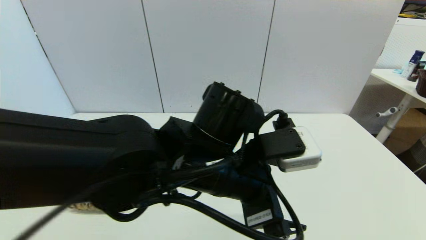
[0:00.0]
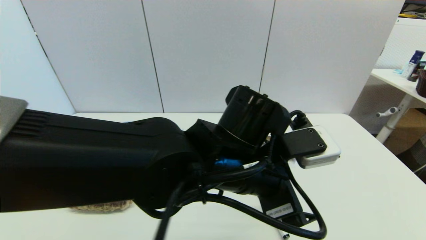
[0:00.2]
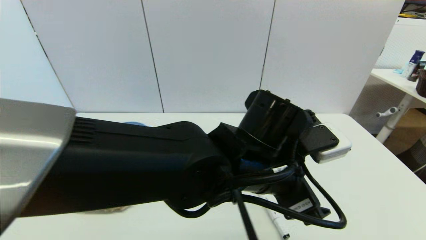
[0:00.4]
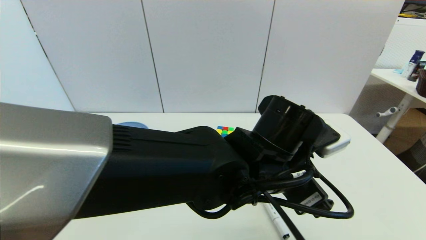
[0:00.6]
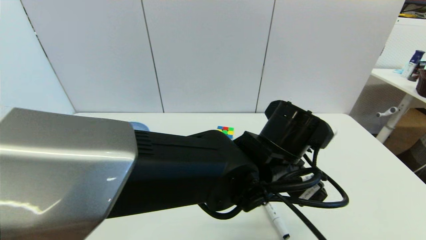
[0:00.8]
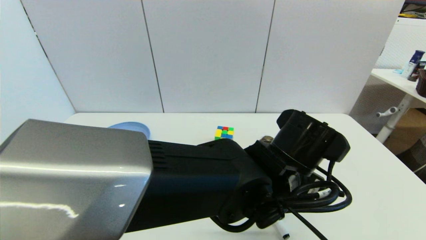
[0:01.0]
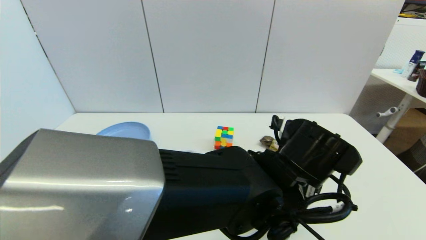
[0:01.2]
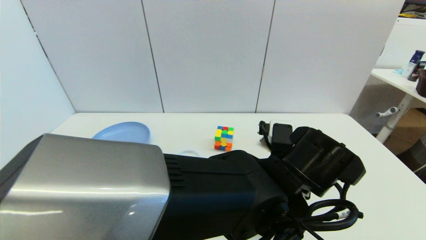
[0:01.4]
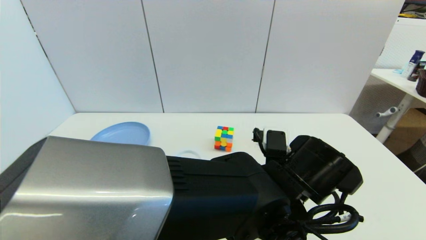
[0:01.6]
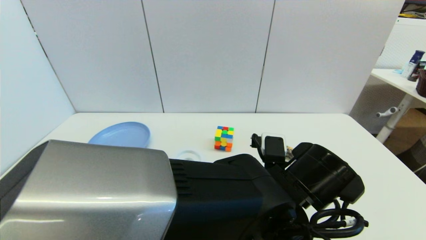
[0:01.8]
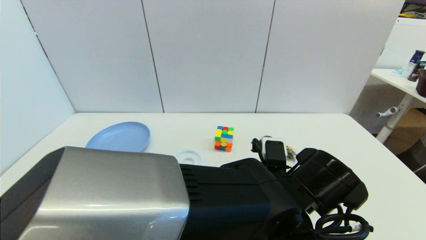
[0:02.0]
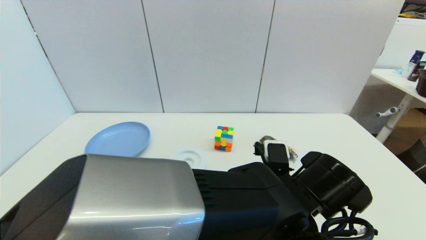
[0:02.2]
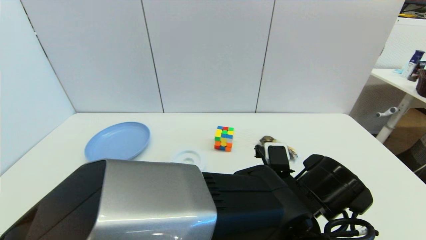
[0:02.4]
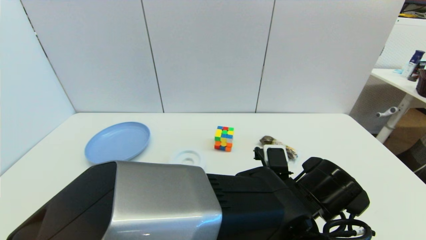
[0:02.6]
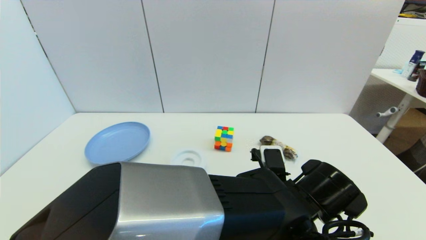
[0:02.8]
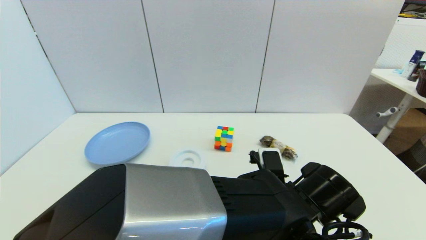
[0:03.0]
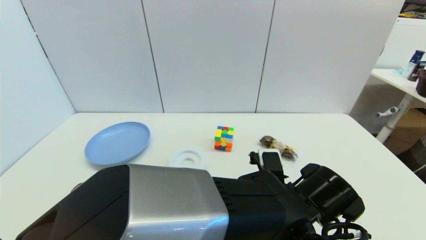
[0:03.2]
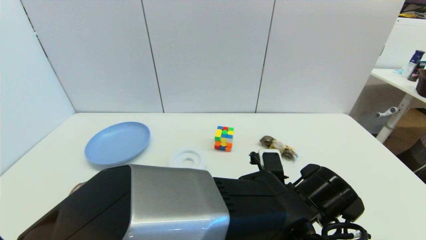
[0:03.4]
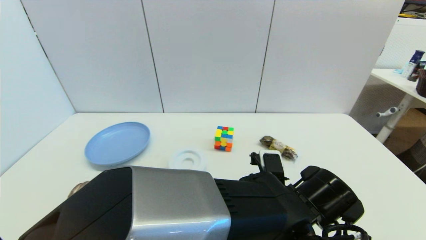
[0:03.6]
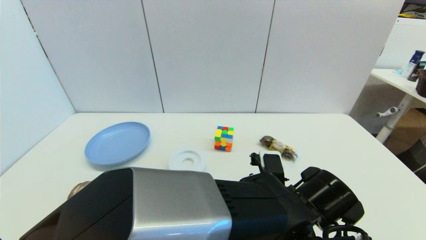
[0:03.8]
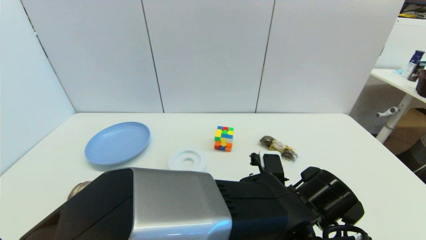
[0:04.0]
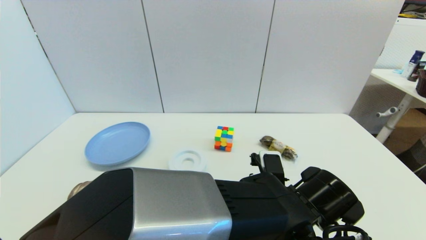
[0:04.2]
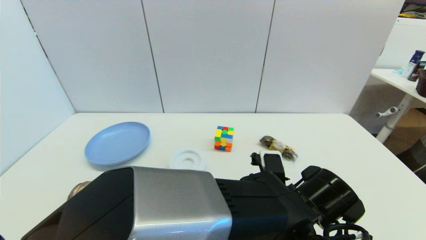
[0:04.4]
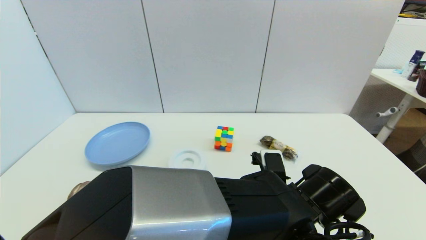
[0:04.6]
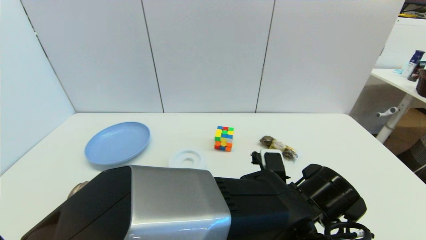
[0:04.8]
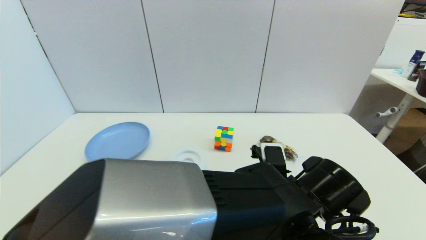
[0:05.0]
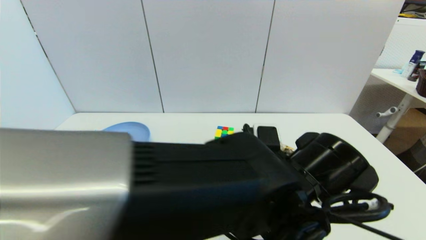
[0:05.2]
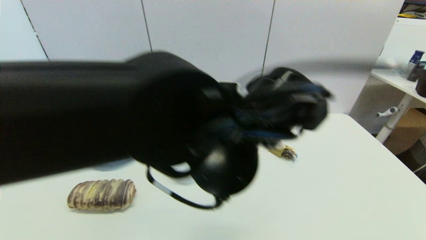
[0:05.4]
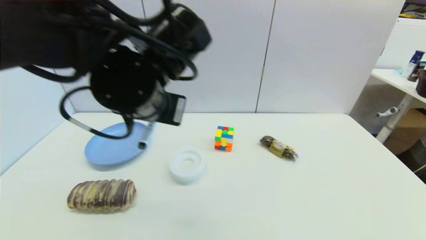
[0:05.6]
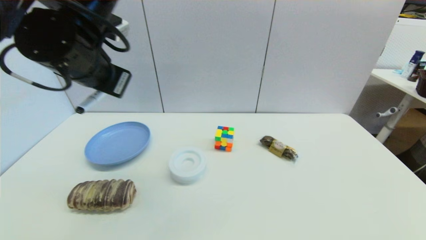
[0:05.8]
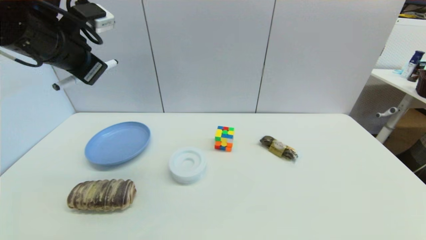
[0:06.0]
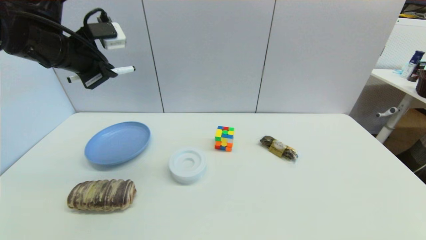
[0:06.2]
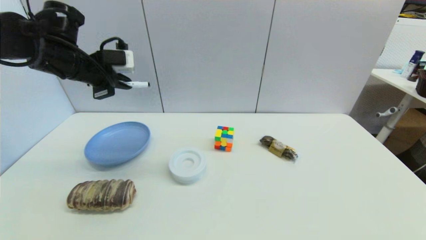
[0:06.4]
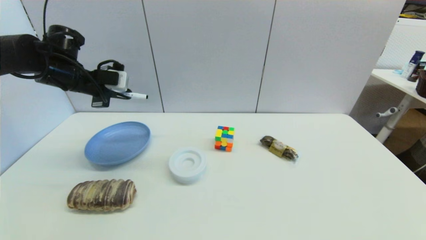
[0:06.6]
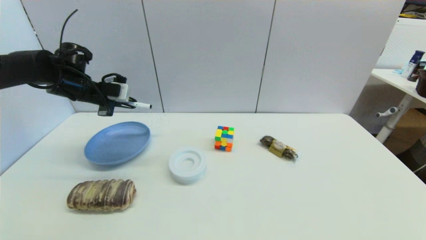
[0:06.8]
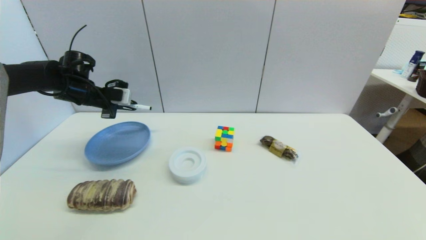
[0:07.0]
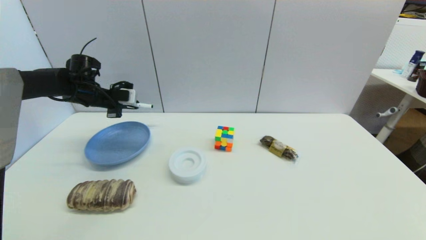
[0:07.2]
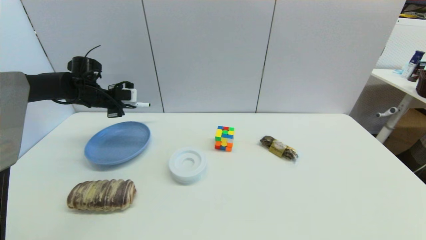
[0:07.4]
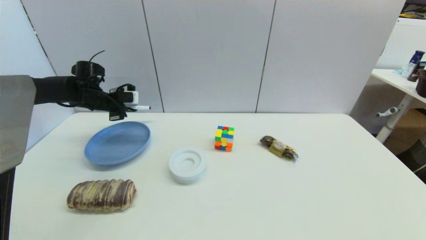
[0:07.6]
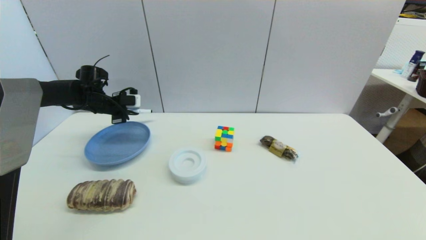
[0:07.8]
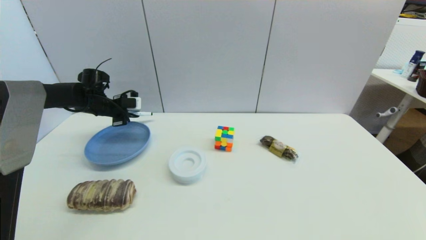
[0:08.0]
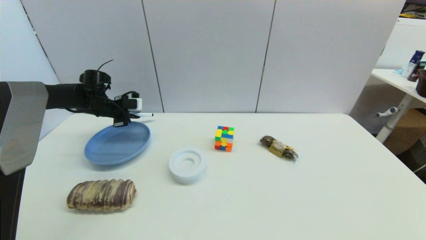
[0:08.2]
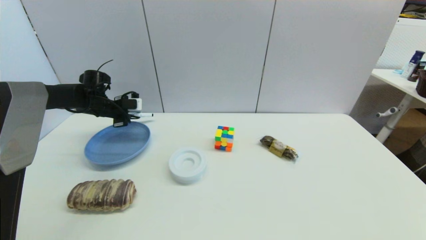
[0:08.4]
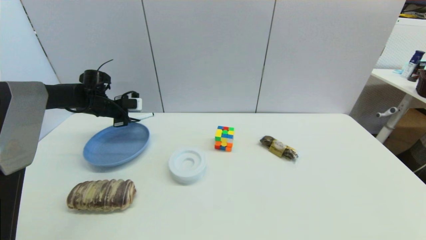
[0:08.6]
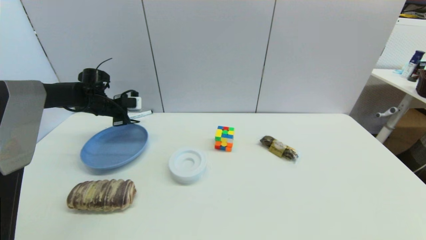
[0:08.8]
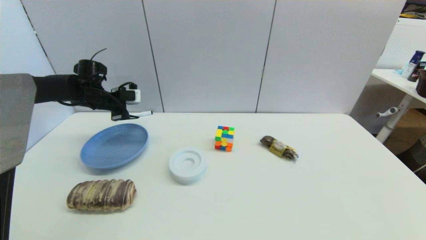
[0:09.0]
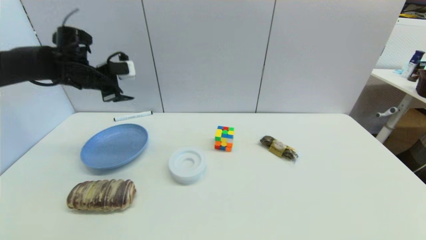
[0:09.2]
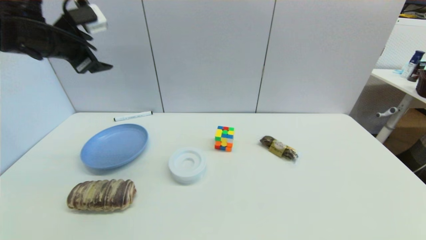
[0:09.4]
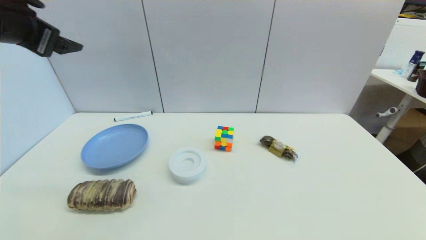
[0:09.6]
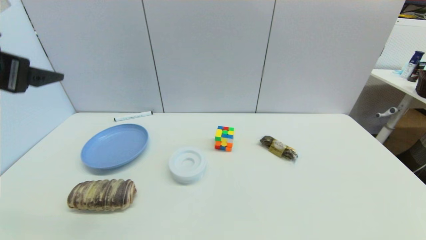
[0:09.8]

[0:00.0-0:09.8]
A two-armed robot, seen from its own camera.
Task of the whole recording: put the black marker in the designated position.
Step, 0:00.0 to 0:04.8: Grasp the Marker pen with left gripper.
Step, 0:05.0 to 0:08.6: Place the Marker pen on the table with left gripper.
0:00.0 to 0:01.4: The left gripper shifts approximately 10 cm to the right.
0:02.8 to 0:04.2: The left gripper closes.
0:04.2 to 0:05.6: The left gripper travels to the left and upward by roughly 30 cm, and closes up.
0:05.6 to 0:07.0: The left gripper is displaced to the left and forward by some 30 cm.
0:07.0 to 0:08.4: The left gripper goes some 5 cm downward.
0:08.4 to 0:09.8: The left gripper goes approximately 35 cm backward and upward, and opens its fingers.

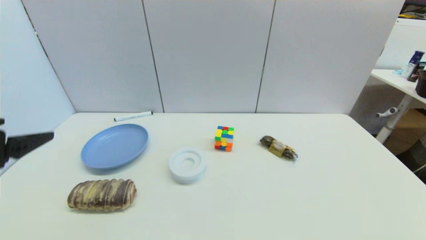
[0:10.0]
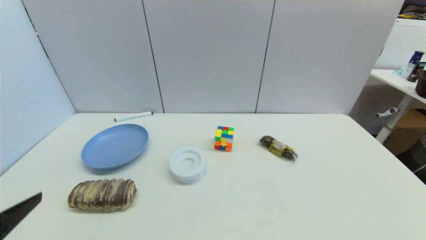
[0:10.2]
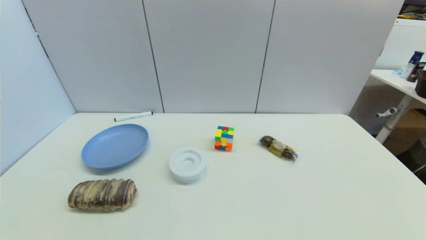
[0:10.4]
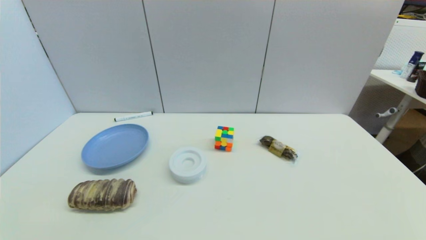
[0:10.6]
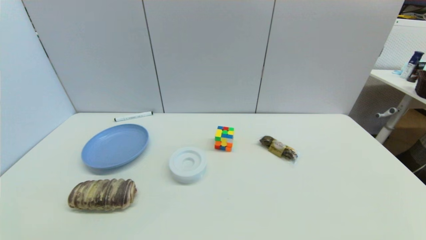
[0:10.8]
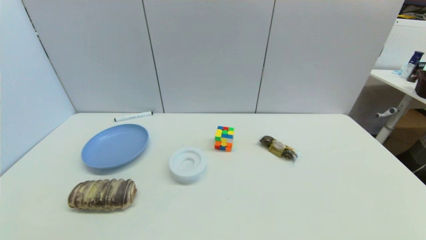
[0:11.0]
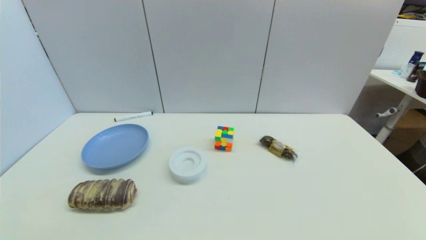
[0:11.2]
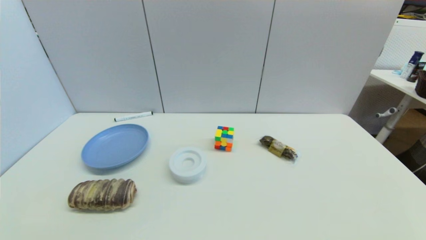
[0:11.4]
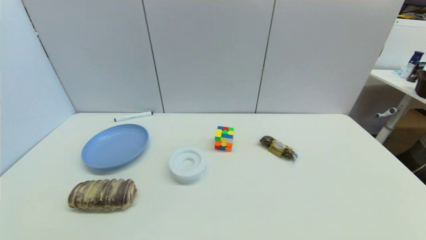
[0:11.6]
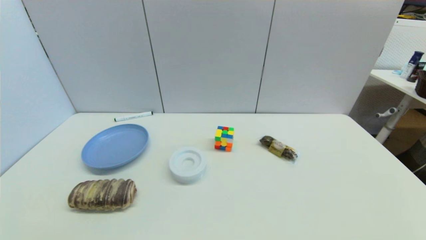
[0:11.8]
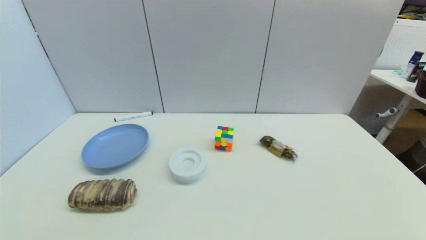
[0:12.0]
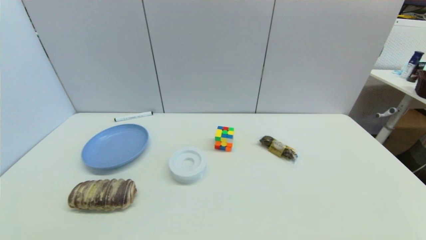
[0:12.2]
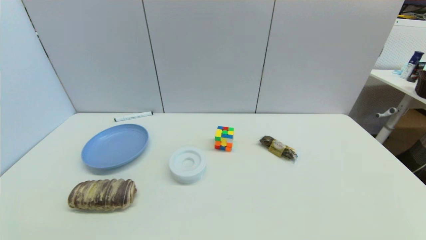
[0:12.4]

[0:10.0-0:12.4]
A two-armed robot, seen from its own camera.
Task of the whole recording: put the black marker in the designated position.
0:10.0 to 0:11.2: The left gripper moves downward and backward, some 25 cm.
0:11.2 to 0:12.4: Both grippers stay about where they are.

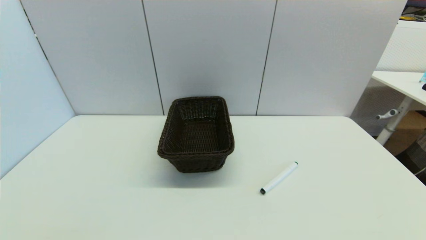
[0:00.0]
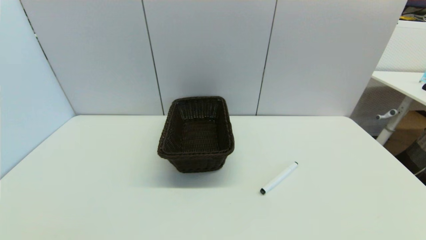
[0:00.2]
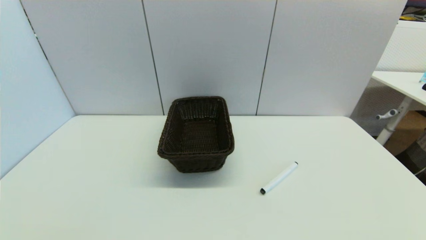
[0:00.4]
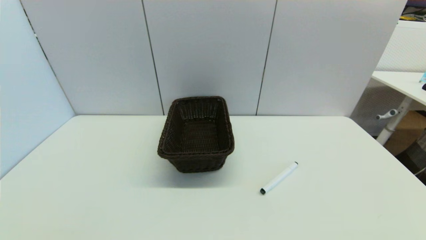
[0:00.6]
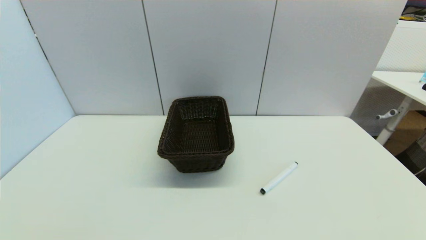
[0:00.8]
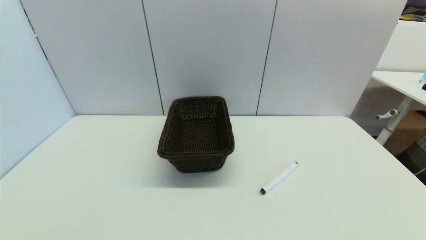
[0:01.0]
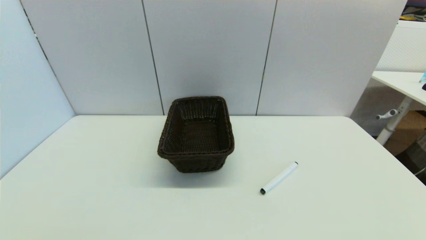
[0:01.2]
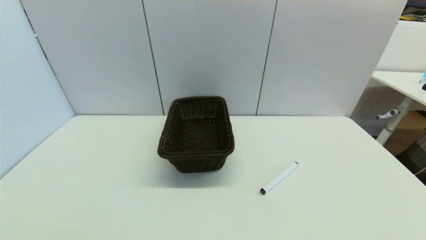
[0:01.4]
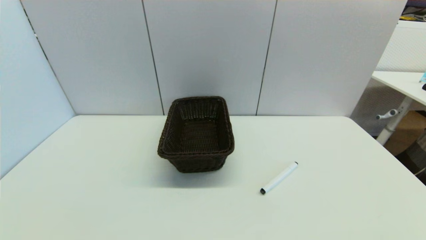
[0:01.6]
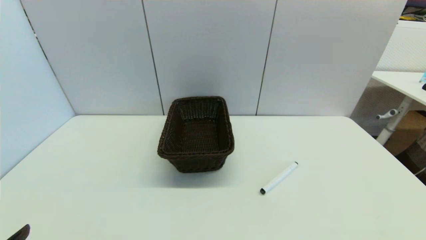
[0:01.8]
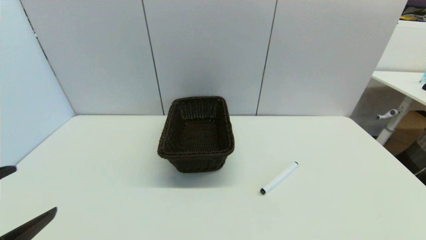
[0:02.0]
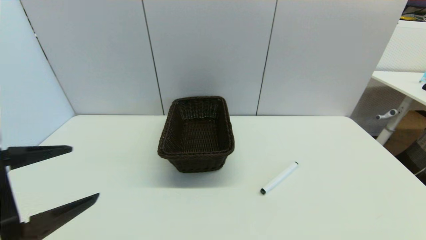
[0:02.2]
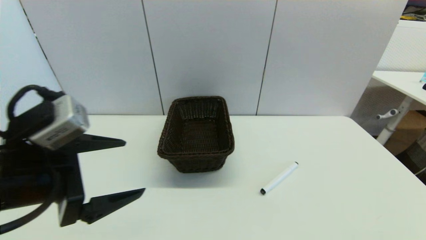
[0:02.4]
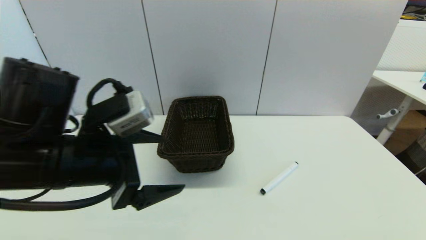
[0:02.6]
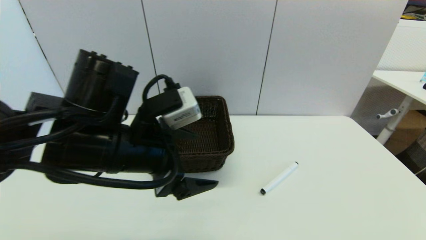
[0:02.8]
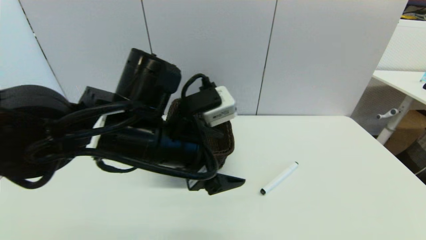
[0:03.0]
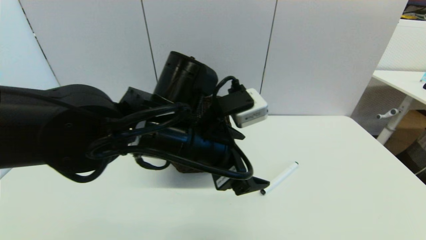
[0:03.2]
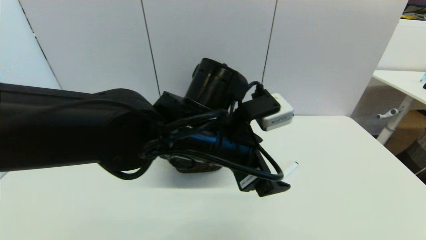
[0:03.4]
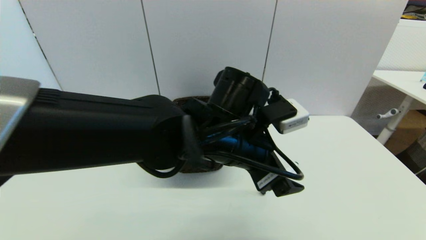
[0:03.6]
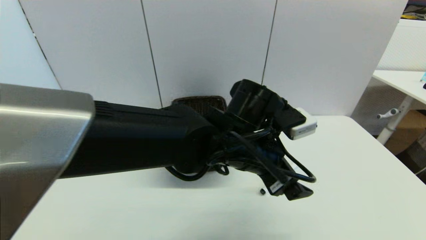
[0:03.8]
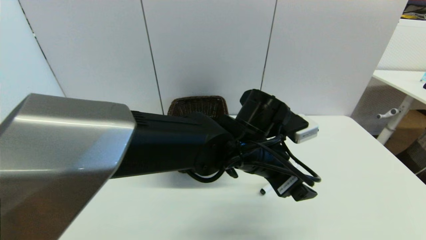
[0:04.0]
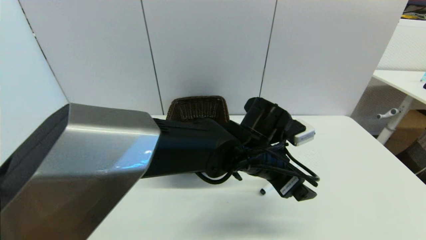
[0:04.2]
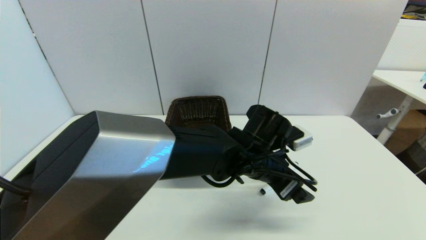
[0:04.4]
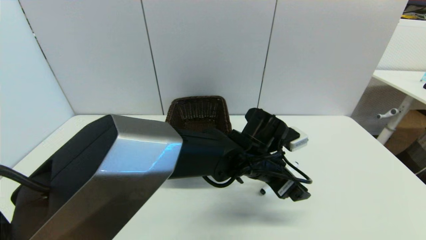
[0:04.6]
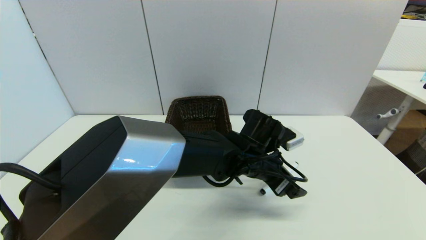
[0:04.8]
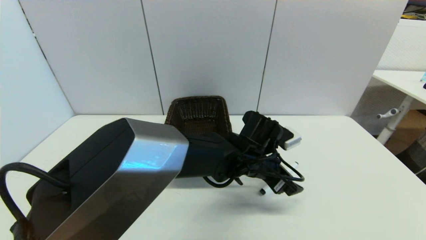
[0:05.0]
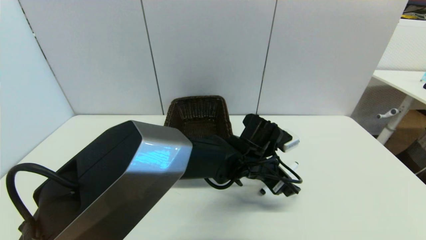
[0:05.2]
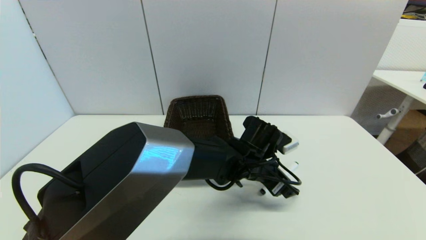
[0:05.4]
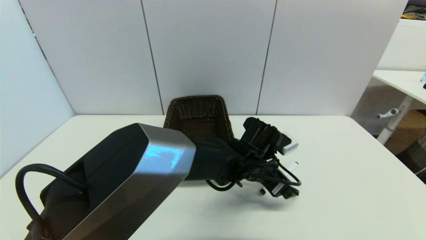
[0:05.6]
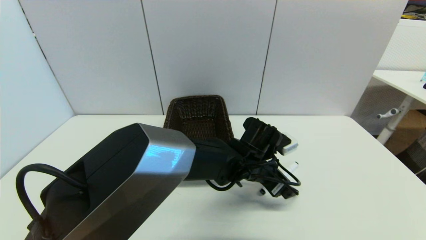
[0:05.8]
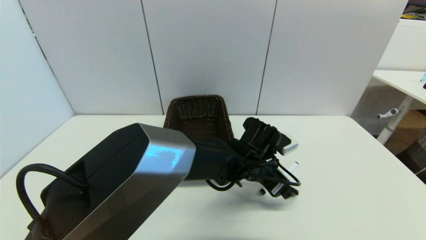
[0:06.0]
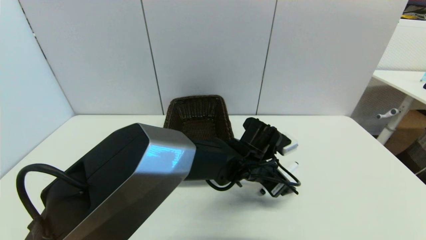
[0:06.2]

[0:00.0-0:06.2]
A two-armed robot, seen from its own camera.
Task of the whole recording: put the black marker in the designated position.
0:01.6 to 0:03.2: The left gripper heads to the right and forward, covering about 35 cm.
0:03.2 to 0:04.6: The left gripper shifts about 15 cm to the right, downward and forward.
0:04.6 to 0:06.2: The grippers stay close to where they were, moving slightly.
